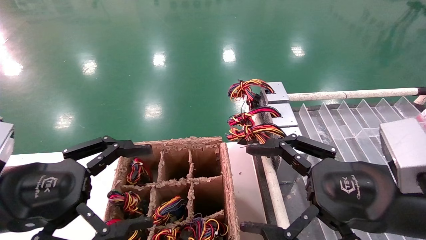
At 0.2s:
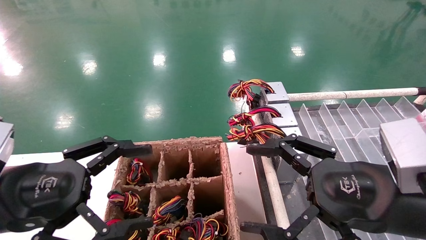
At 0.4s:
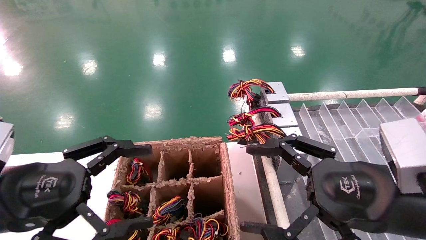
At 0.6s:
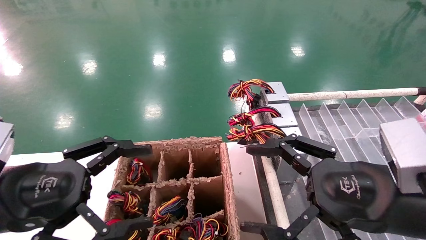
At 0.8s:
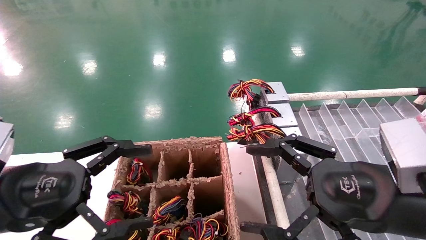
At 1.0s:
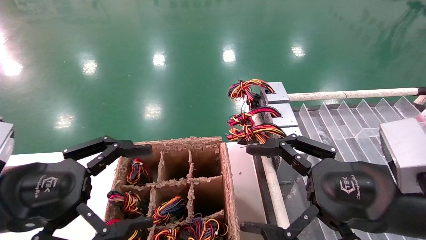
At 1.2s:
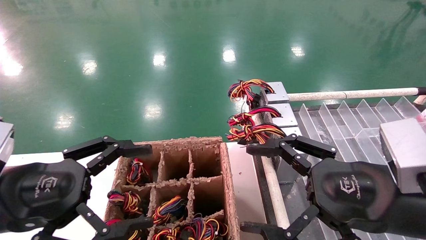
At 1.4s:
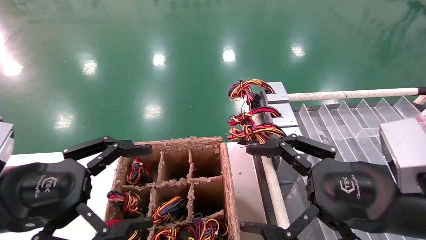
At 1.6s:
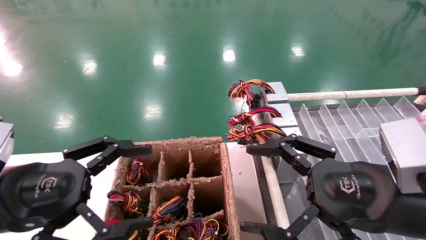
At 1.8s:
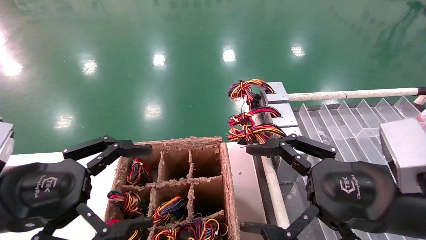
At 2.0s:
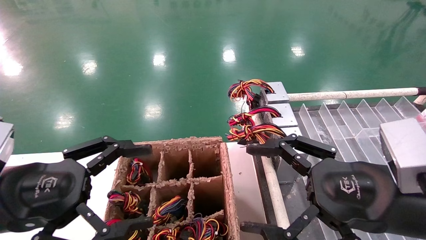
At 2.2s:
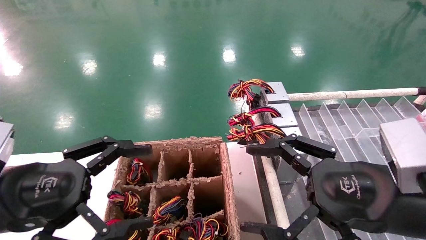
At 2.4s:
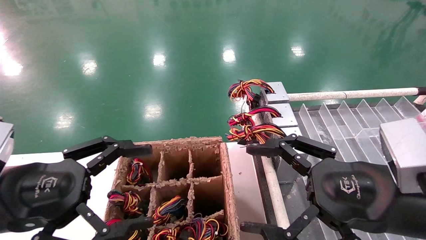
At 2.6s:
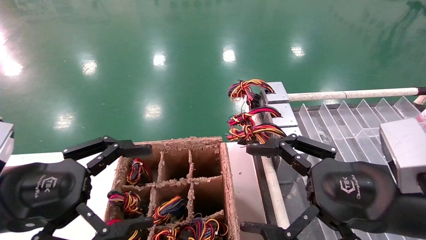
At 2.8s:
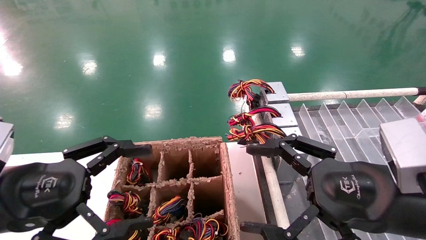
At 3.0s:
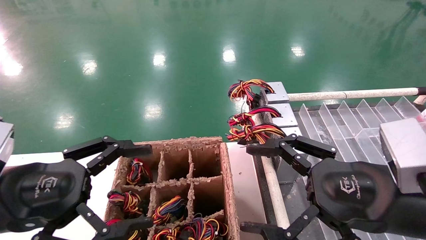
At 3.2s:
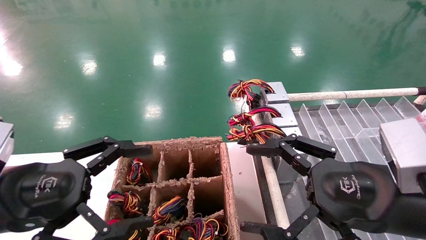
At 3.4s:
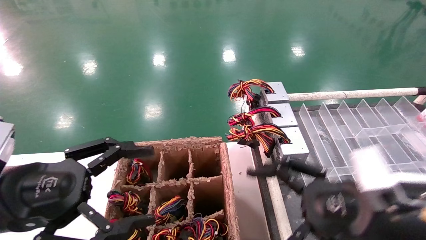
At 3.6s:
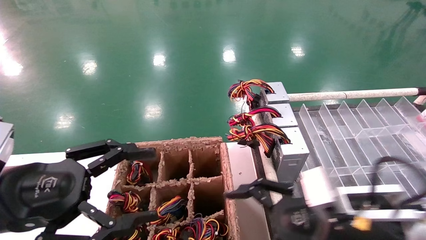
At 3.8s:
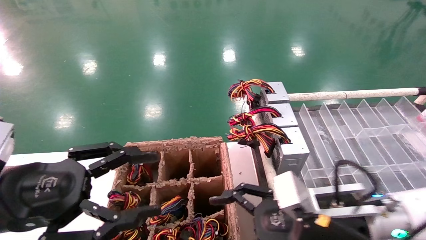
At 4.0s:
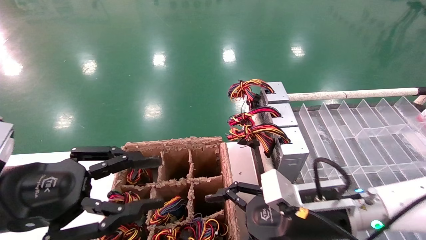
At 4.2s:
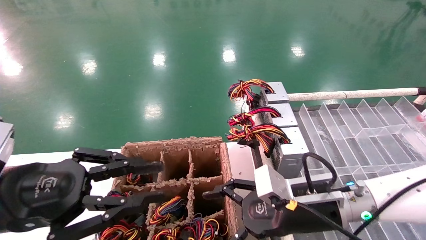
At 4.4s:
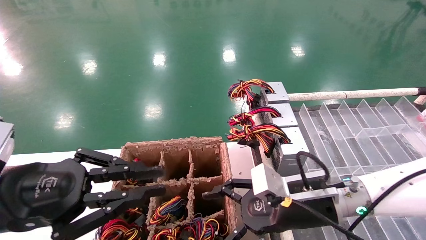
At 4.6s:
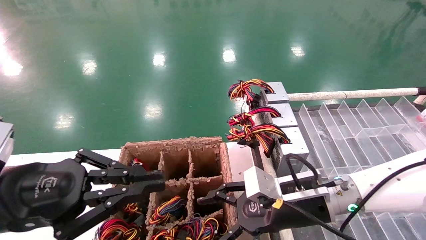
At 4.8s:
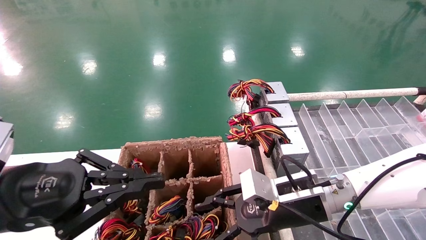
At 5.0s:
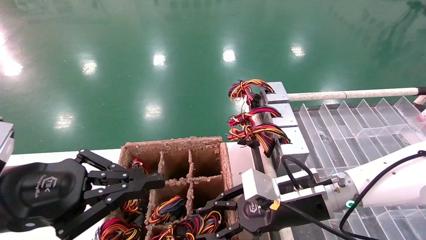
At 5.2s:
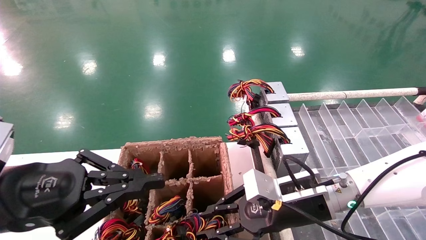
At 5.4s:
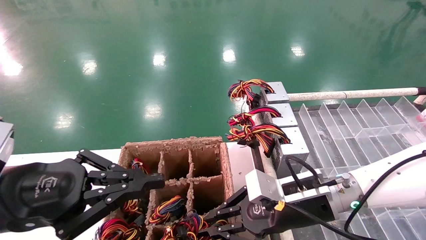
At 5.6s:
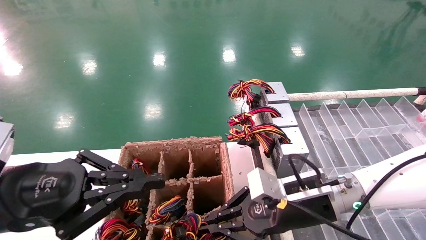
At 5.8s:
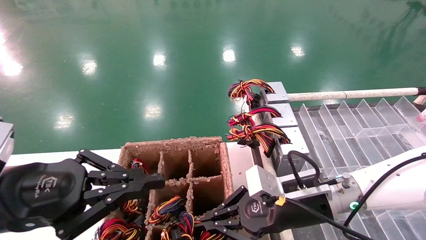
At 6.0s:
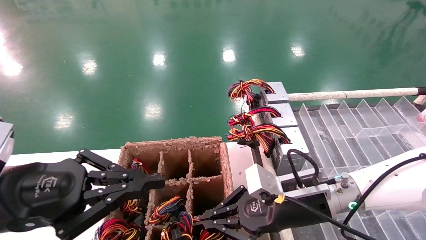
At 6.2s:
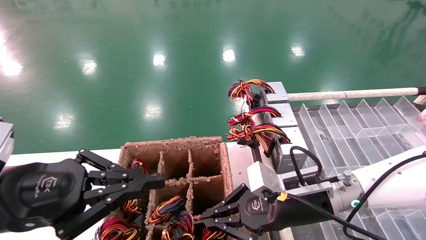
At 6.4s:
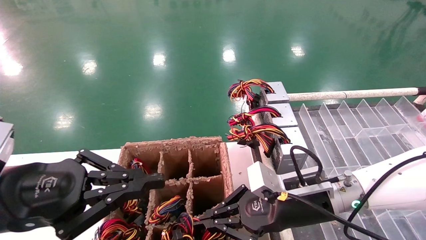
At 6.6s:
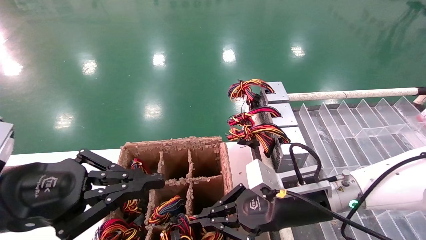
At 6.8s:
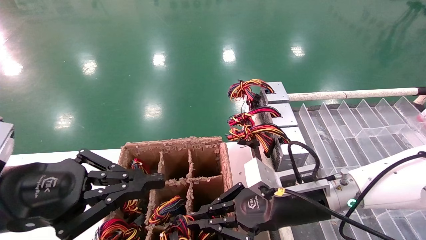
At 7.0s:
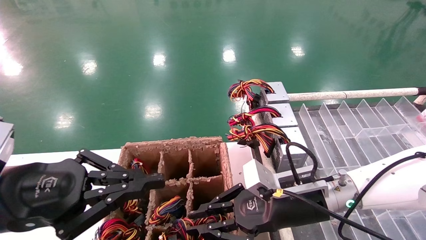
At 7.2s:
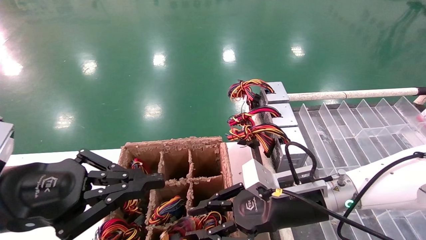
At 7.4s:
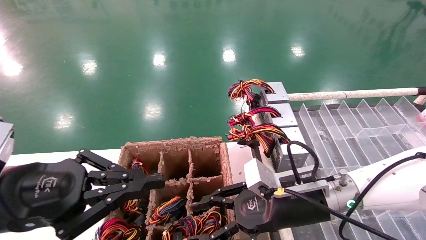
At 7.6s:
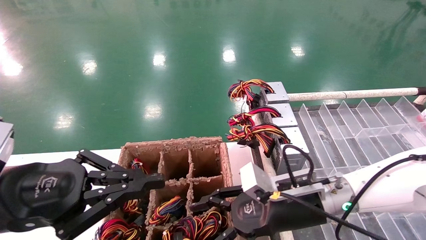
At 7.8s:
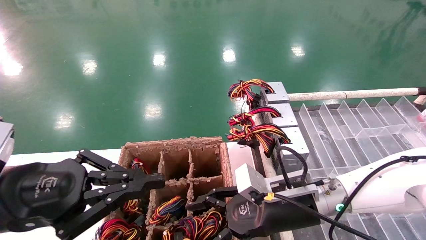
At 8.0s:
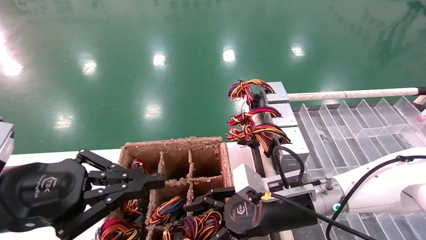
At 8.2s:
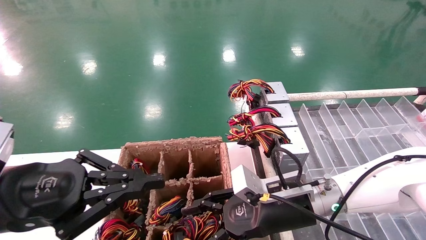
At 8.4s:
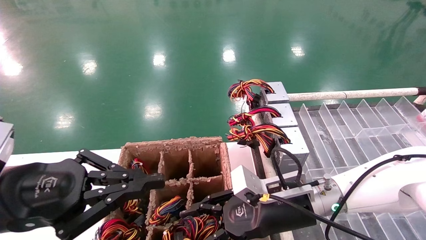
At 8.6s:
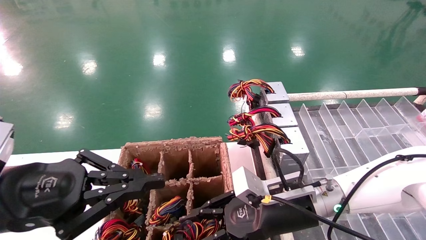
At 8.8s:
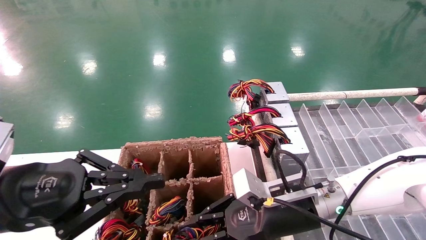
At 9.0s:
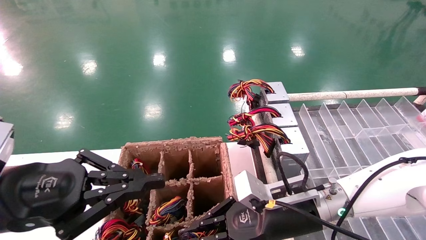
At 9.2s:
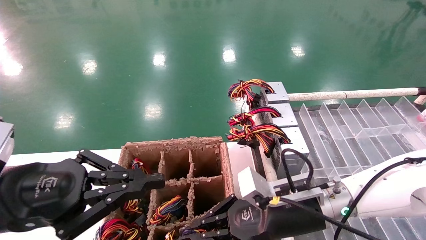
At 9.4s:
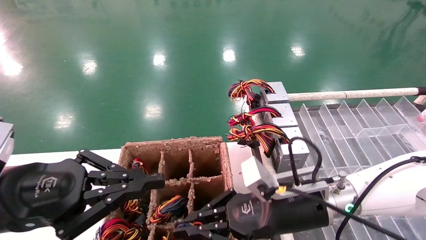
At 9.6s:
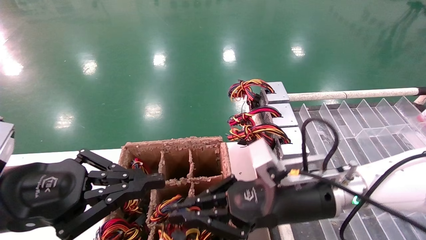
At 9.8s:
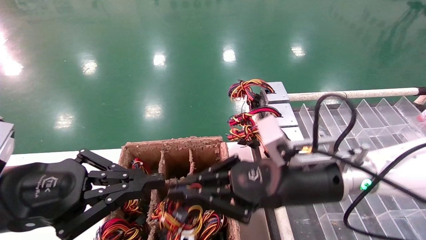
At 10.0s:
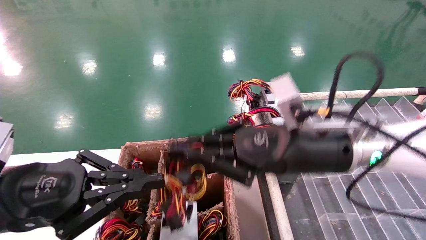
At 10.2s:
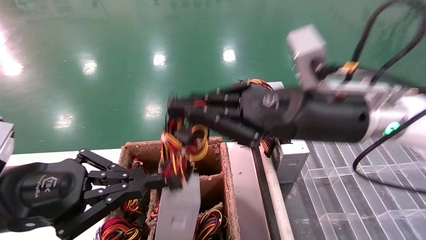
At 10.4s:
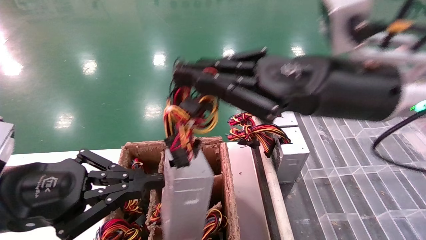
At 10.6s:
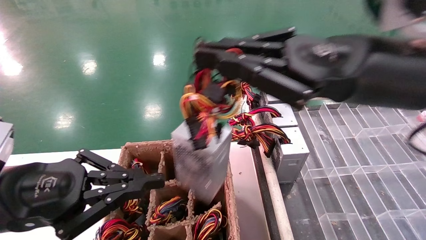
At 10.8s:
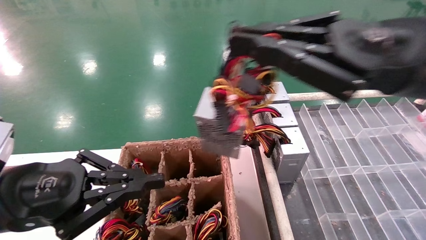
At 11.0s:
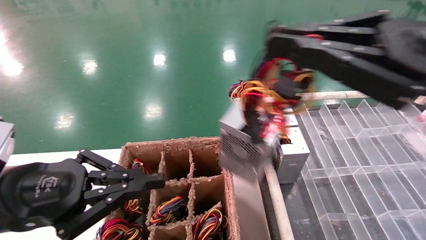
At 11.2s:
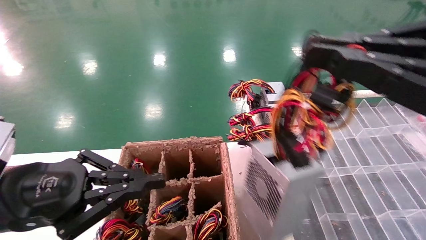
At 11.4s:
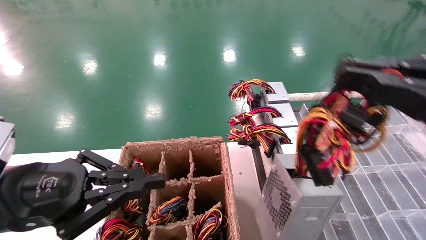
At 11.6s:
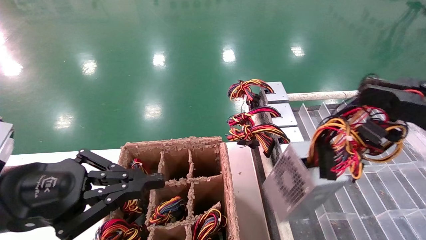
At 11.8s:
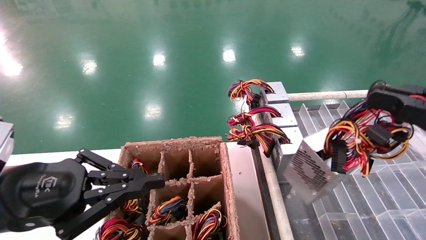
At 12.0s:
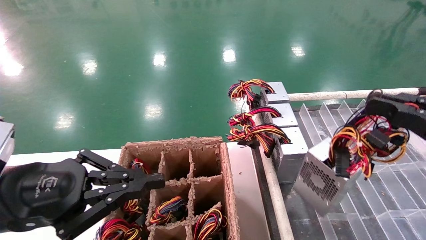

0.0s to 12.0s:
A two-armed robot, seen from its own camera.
Step, 3.6s to 9.2s: Grab the main unit power supply from the containment box.
0.0s to 3.0s: The two grippers keep their place.
3.0s to 4.4s: The right gripper moves forward, downward and to the left, roughly 15 cm; the left gripper closes.
4.4s to 6.0s: The right gripper closes its fingers.
6.0s to 7.6s: The right gripper opens.
7.6s to 9.0s: The right gripper closes up.
9.0s to 10.4s: The right gripper shifts roughly 20 cm upward.
10.4s to 12.0s: The right gripper moves to the right and backward, some 20 cm.

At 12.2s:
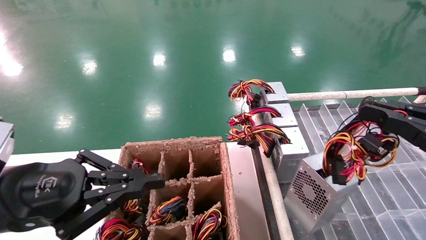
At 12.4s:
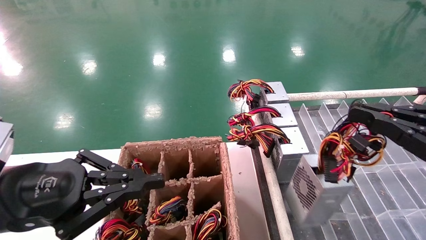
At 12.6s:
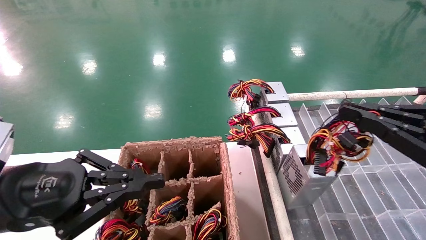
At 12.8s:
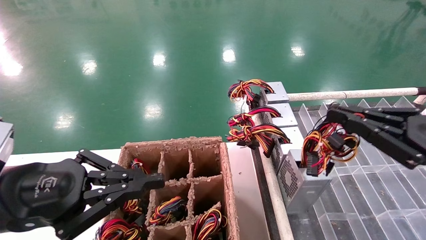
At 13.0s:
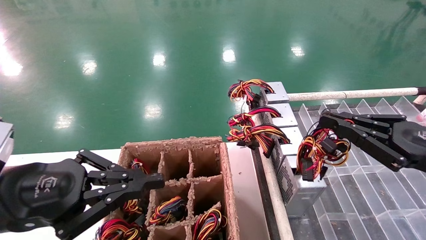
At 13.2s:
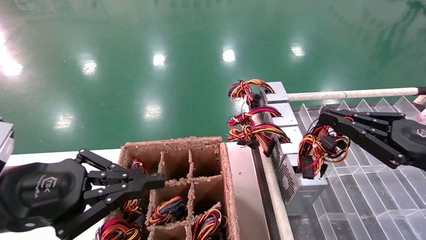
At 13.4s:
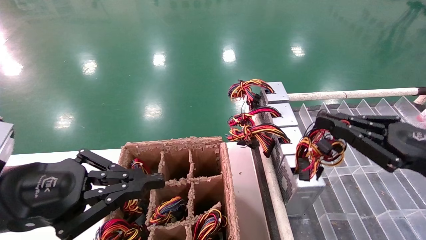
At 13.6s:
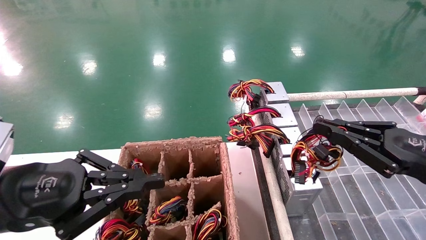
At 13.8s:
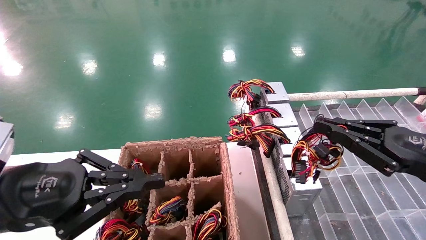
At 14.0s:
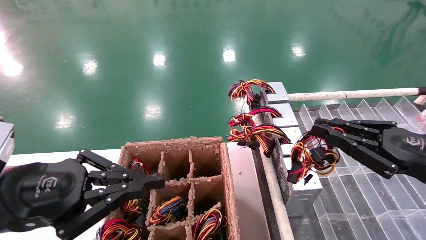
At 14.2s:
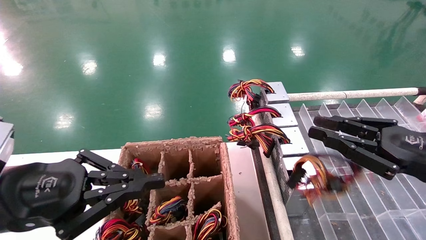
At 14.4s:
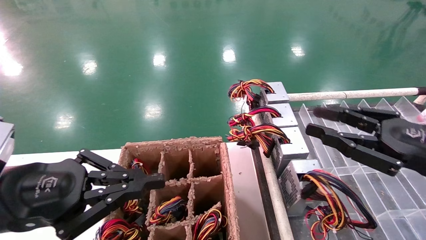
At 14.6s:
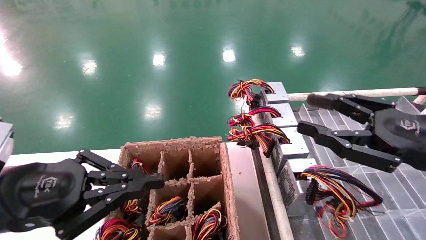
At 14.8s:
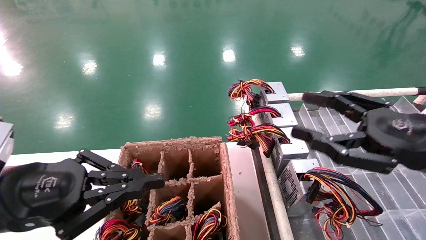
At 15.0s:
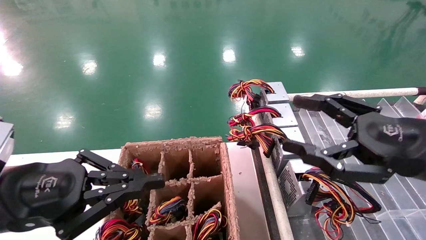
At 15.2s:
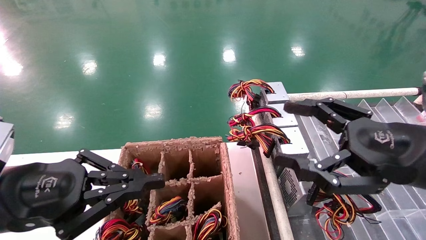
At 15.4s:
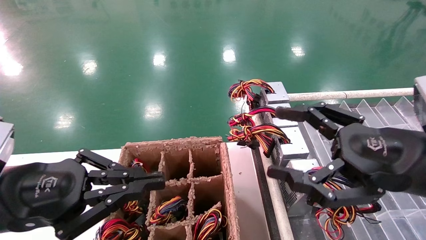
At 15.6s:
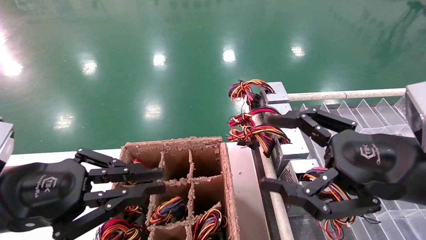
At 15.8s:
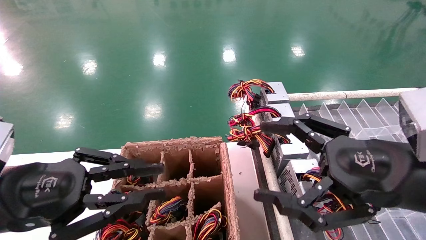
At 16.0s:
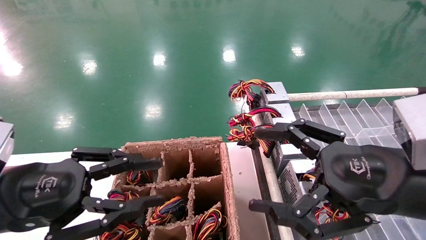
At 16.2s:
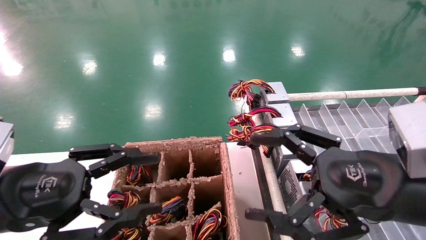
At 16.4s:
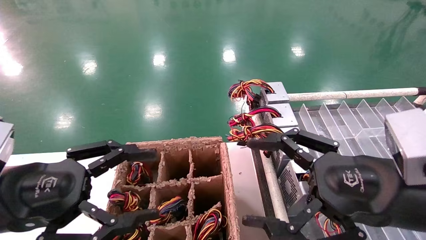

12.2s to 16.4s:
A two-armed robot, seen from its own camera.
12.2s to 13.6s: The right gripper travels forward by some 5 cm.
13.6s to 15.0s: The right gripper shifts approximately 5 cm to the left, and opens.
15.0s to 16.4s: The right gripper travels to the left by some 5 cm. The left gripper opens up.
